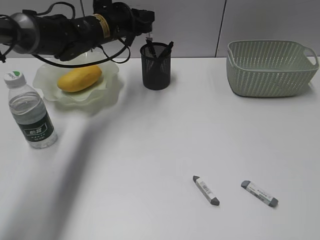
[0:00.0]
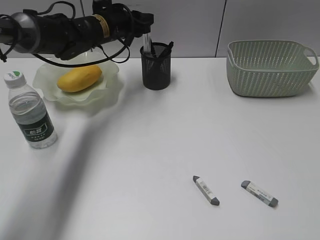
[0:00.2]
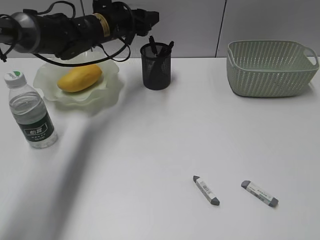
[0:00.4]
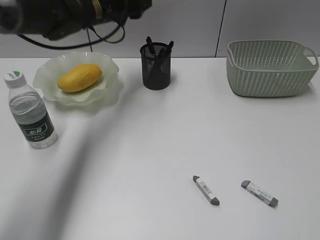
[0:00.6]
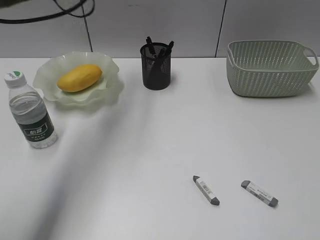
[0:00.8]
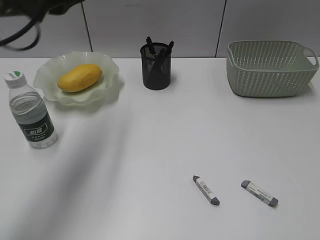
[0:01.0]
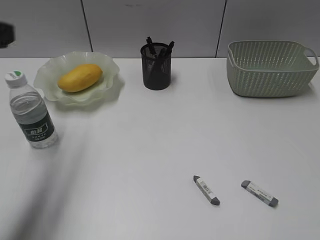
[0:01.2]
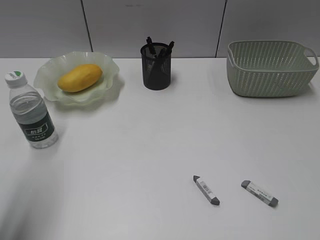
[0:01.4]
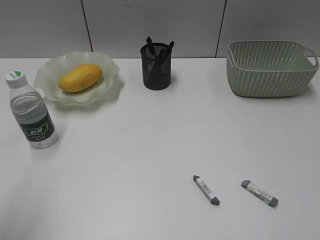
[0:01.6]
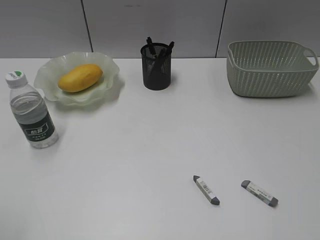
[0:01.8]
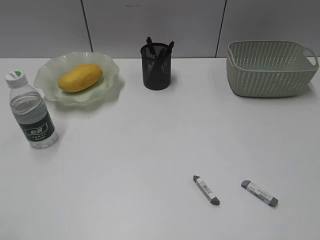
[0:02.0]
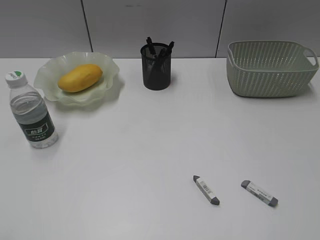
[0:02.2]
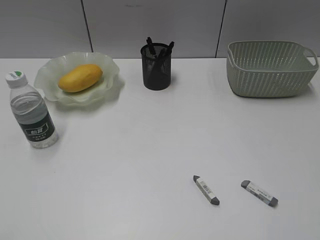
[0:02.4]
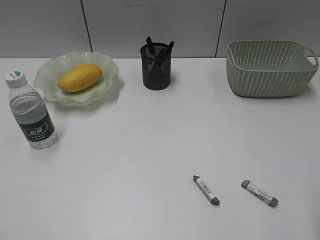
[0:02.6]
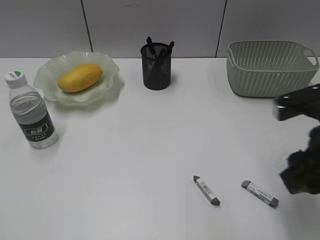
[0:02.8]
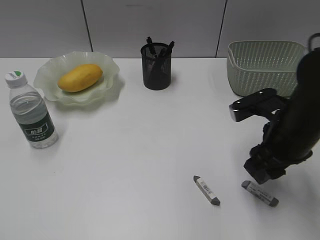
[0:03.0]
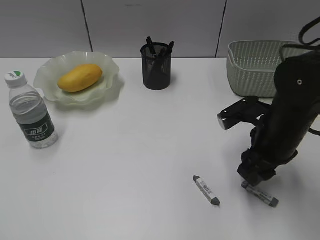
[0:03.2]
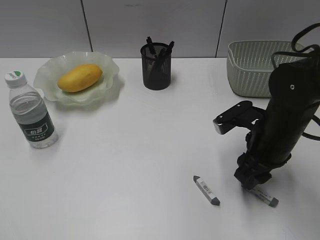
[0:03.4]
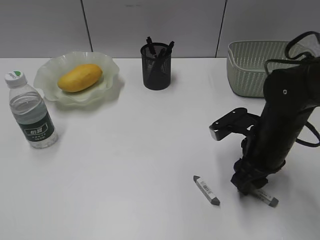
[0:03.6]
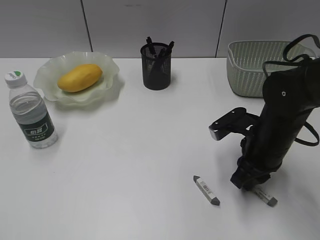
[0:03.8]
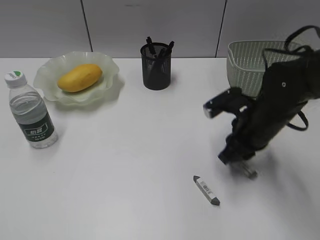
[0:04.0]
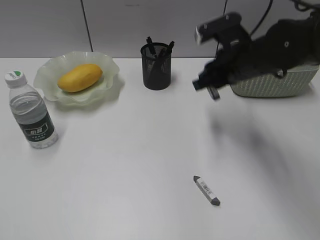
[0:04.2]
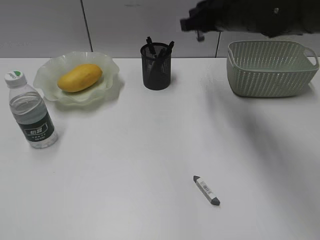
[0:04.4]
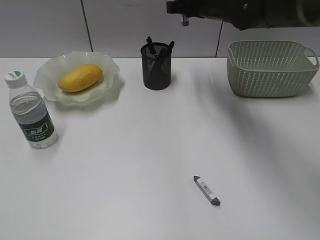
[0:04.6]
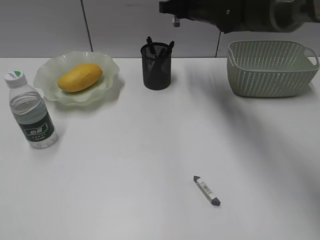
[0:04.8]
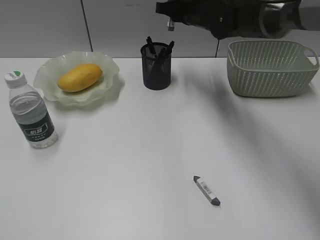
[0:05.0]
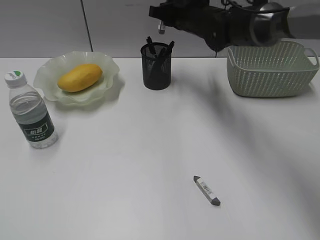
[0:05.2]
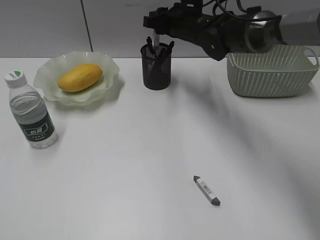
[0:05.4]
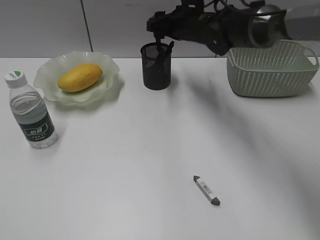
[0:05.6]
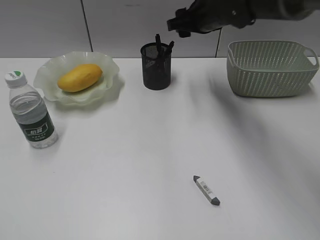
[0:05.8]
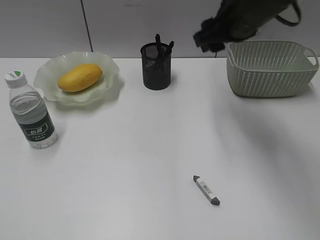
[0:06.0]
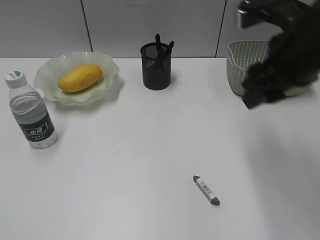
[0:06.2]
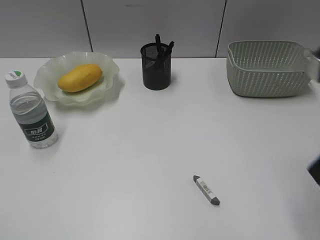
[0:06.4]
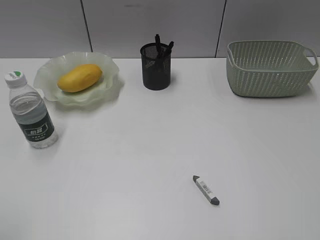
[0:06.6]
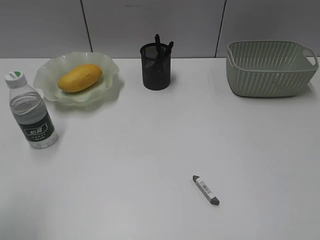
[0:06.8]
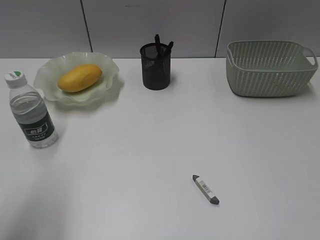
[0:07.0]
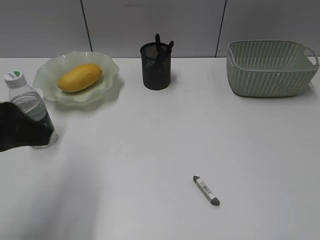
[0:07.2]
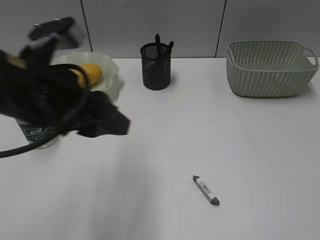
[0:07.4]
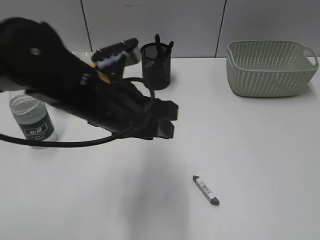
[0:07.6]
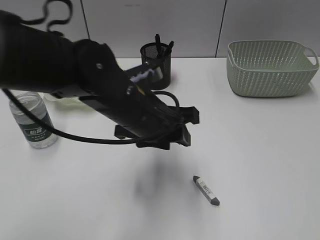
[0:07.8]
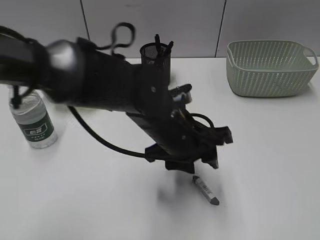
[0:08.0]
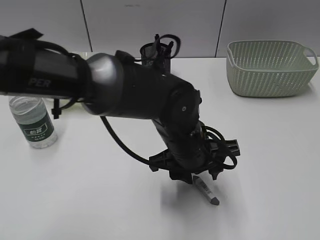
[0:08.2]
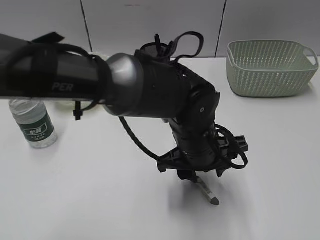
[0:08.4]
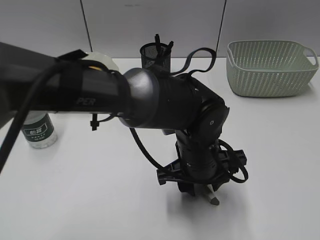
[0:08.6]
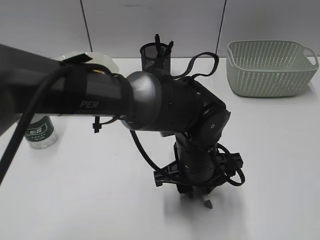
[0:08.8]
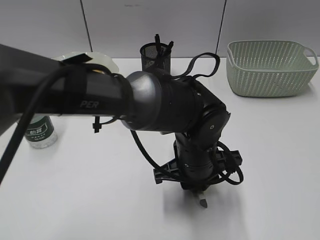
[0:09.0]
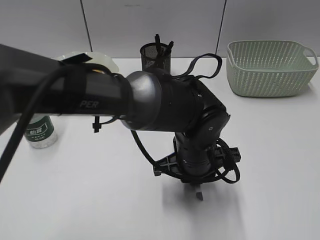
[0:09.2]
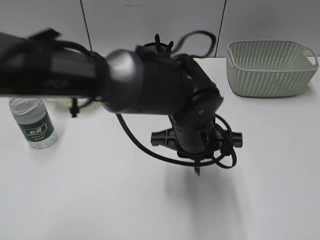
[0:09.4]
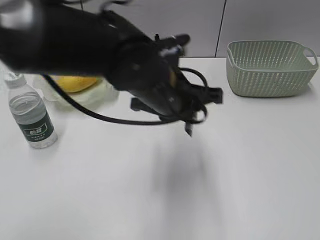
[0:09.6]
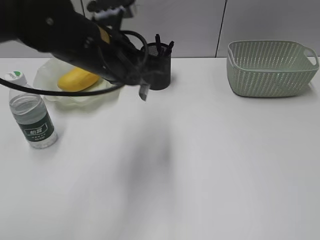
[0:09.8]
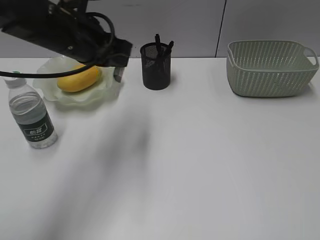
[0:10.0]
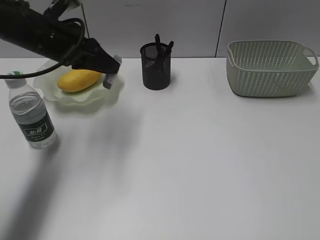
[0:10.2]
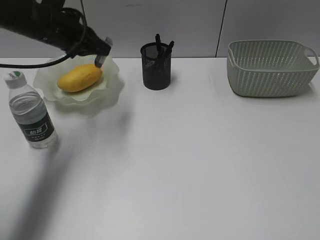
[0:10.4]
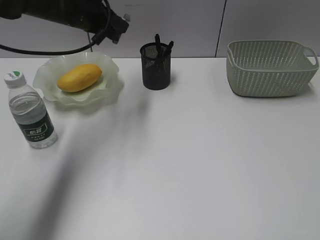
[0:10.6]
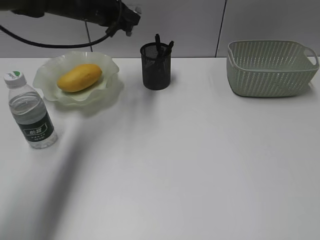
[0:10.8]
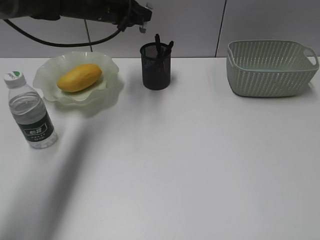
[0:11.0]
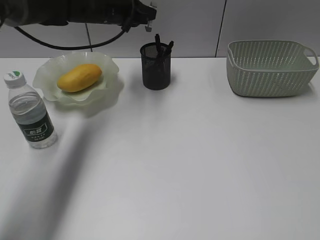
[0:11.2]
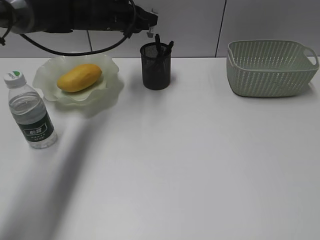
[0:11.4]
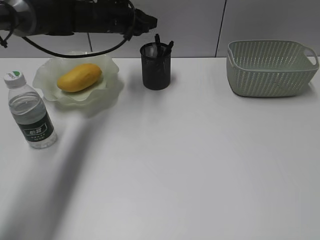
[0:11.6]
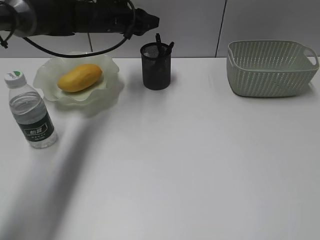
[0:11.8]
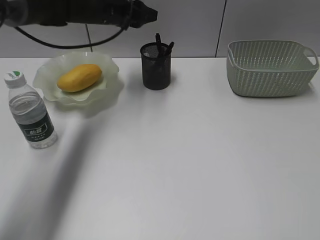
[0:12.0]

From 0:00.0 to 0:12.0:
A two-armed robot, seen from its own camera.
Step, from 0:00.6 to 0:03.8: Grasp the eraser with right gripper.
Step, from 0:05.6 to 0:08.8: Grasp the eraser with left gripper.
Step, from 0:09.0 to 0:11.6: Place the eraser in pen holder with left gripper.
From 0:00.0 to 0:01.6: The left gripper goes roughly 40 cm backward and to the left, and opens, then closes once more.
From 0:01.6 to 0:03.0: The right gripper goes approximately 30 cm forward, downward and to the left. Meanwhile the left gripper moves backward, roughly 10 cm.
From 0:03.0 to 0:04.4: The right gripper goes about 20 cm forward, upward and to the left, and closes up.
From 0:04.4 to 0:06.0: The right gripper goes forward and returns, about 10 cm each way, and opens up.
From 0:06.0 to 0:07.6: The right gripper heads backward and to the right, covering some 40 cm; the left gripper travels to the right and forward by roughly 35 cm.
From 0:07.6 to 0:09.0: The left gripper goes about 15 cm to the right and downward.
From 0:09.0 to 0:10.4: The left gripper heads to the left, forward and upward, covering about 30 cm.
From 0:10.4 to 0:12.0: The left gripper shifts approximately 15 cm forward and to the right, and opens its fingers.

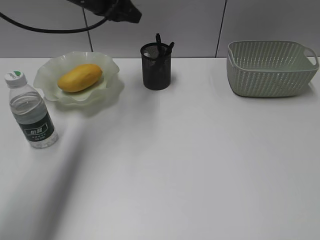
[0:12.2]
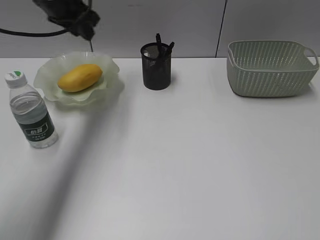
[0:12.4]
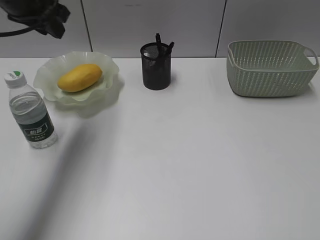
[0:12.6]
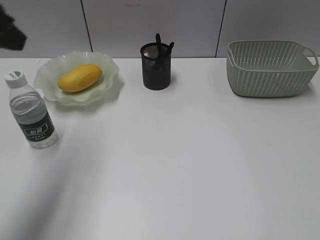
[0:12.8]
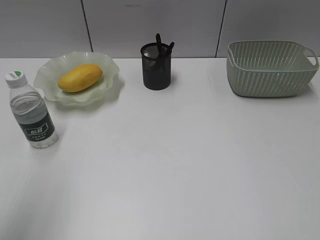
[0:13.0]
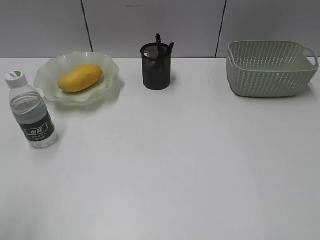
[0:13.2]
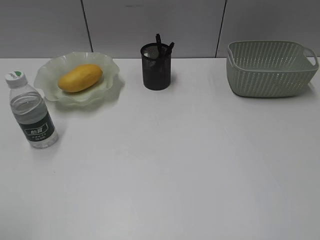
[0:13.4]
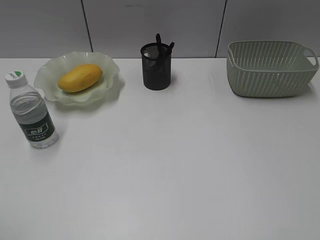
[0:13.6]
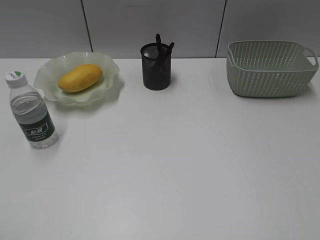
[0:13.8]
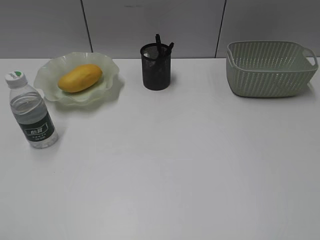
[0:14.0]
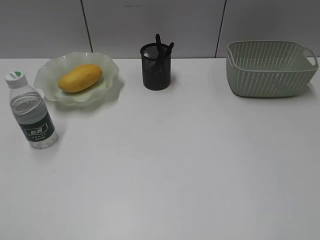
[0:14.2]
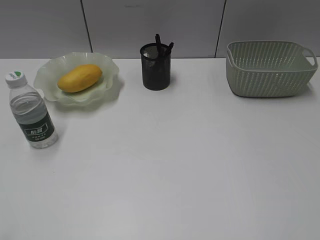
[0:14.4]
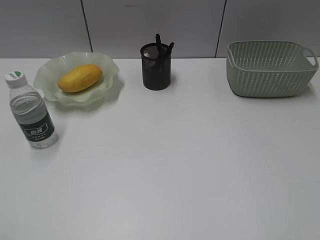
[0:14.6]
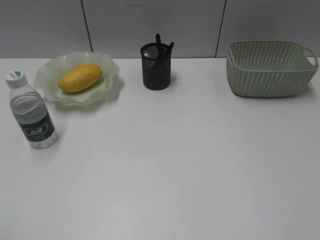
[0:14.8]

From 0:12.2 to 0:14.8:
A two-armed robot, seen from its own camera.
From 0:12.2 to 0:13.4: The left gripper heads backward and to the left, covering approximately 50 cm.

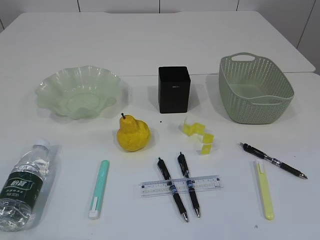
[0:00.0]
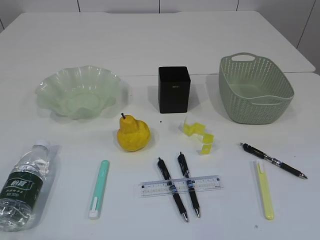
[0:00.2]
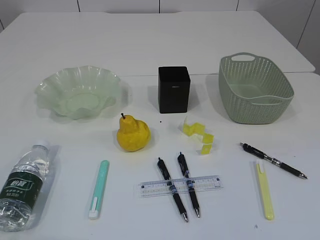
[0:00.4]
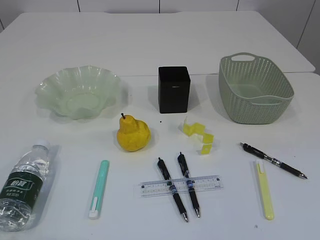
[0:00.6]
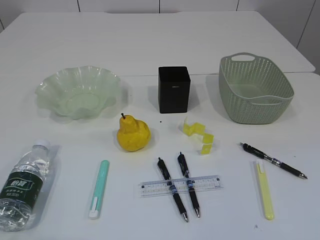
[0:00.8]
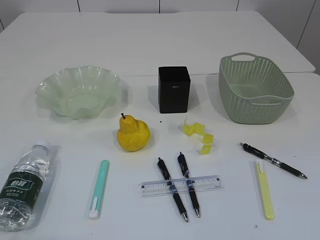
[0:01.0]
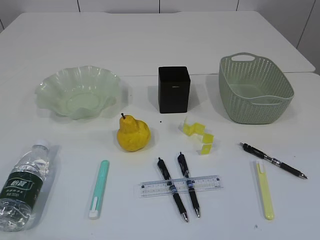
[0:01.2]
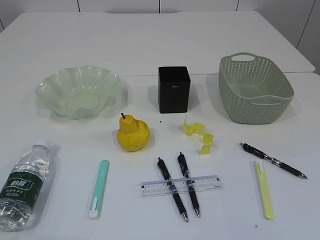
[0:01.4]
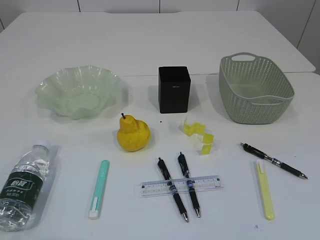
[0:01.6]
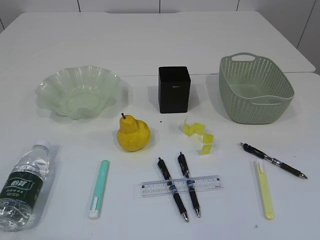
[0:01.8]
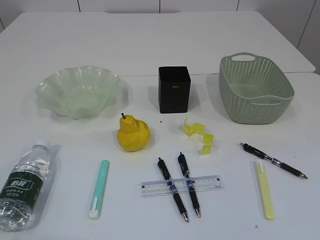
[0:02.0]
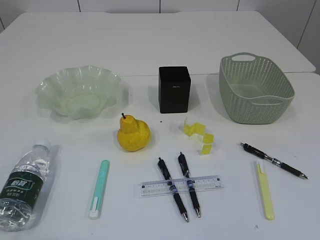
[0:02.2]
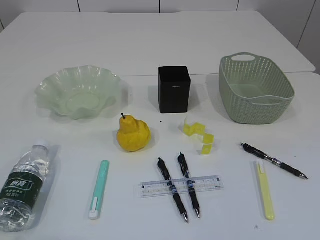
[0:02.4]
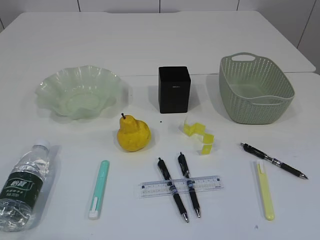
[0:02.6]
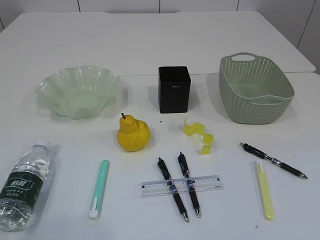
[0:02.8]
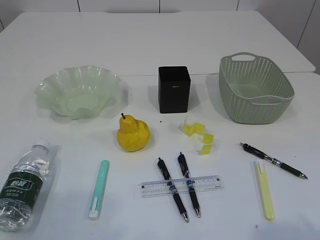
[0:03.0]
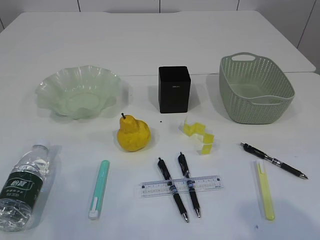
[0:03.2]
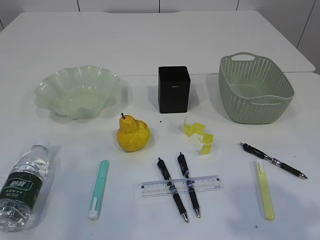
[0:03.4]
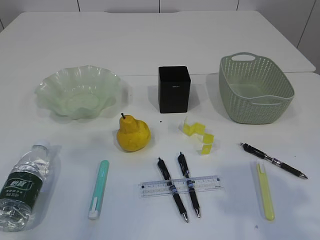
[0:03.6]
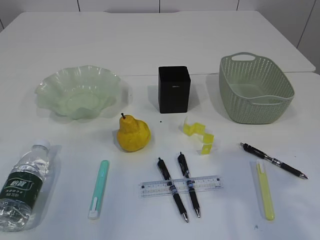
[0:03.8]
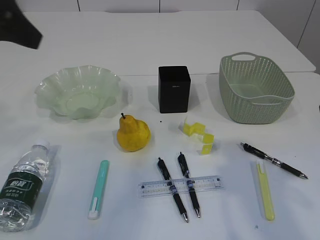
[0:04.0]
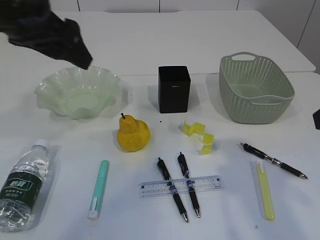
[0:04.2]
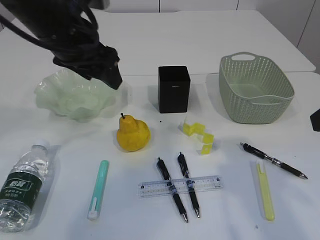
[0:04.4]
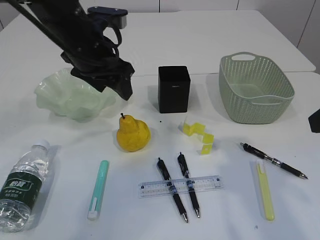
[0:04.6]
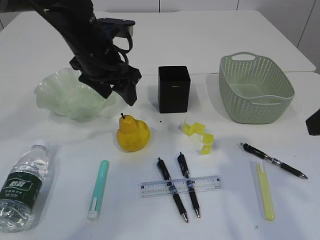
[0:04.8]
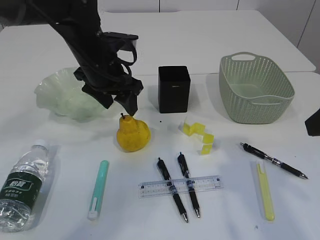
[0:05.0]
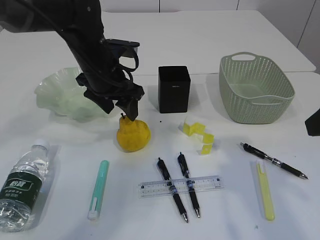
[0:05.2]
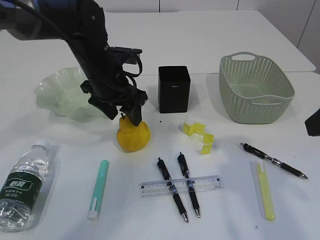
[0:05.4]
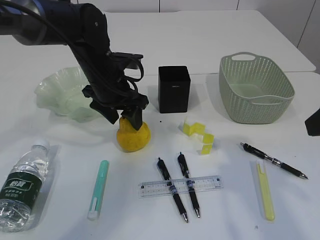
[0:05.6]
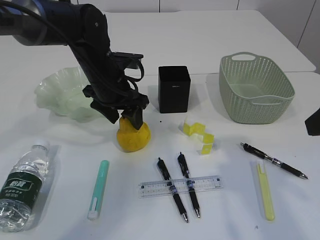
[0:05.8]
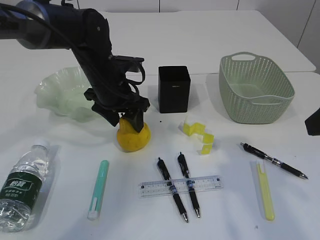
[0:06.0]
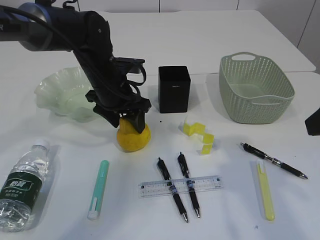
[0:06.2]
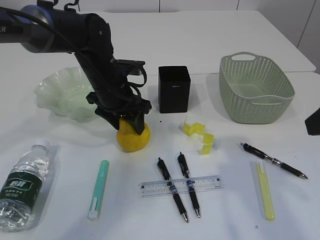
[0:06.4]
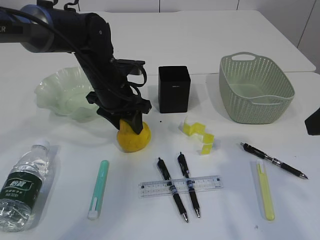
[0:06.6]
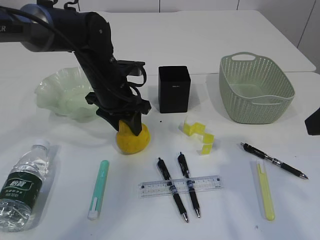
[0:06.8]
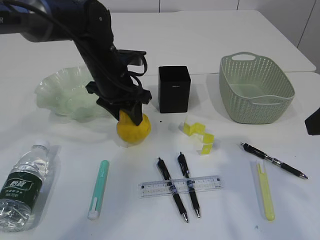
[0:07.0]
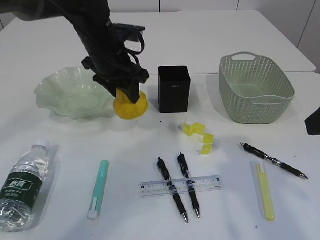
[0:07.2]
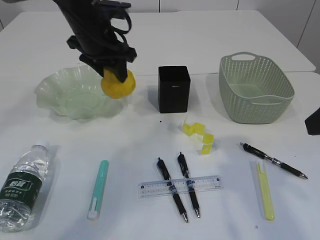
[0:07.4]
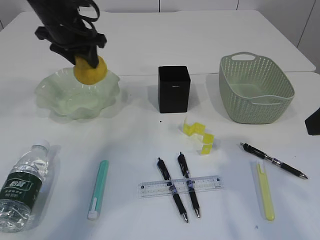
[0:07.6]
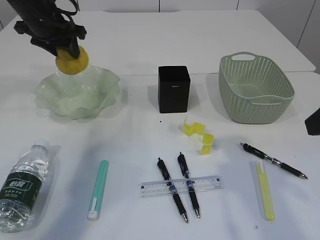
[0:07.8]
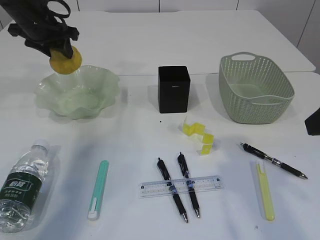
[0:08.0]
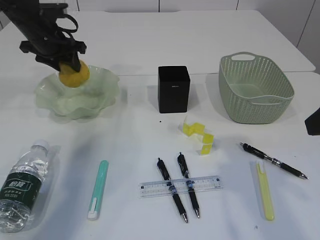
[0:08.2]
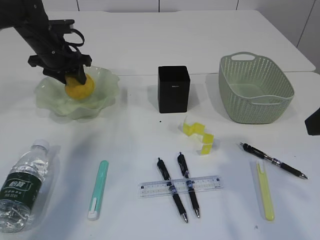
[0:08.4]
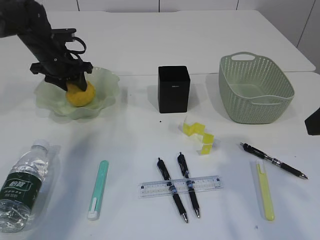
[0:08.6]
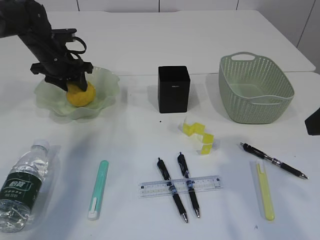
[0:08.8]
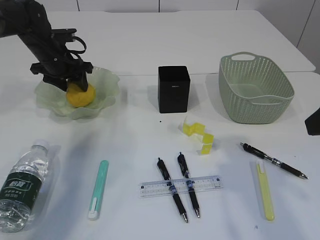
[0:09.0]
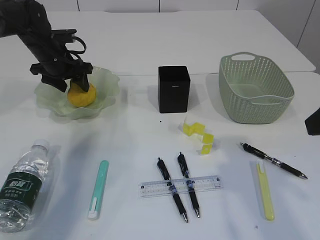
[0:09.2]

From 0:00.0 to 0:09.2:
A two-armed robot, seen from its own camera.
From 0:03.0 to 0:04.6: The left gripper travels forward and to the right by about 35 cm; the right gripper travels forward by approximately 15 cm.
From 0:04.6 to 0:06.2: The left gripper is displaced downward by roughly 10 cm.
From 0:06.2 to 0:07.6: The left gripper is displaced upward, to the left and forward by about 15 cm.
From 0:07.6 to 0:09.2: The left gripper travels downward and to the left by roughly 10 cm.
